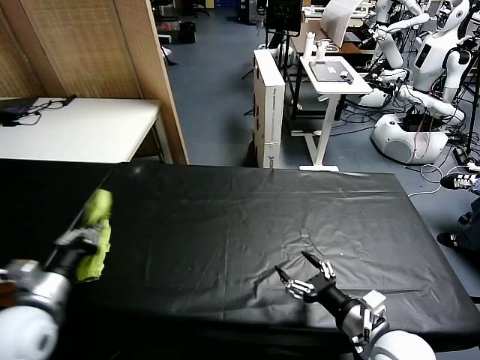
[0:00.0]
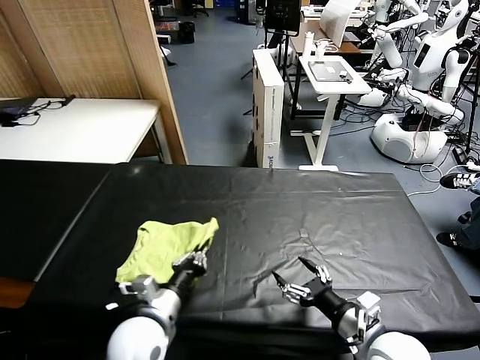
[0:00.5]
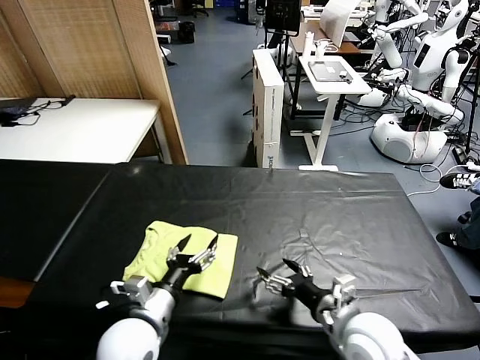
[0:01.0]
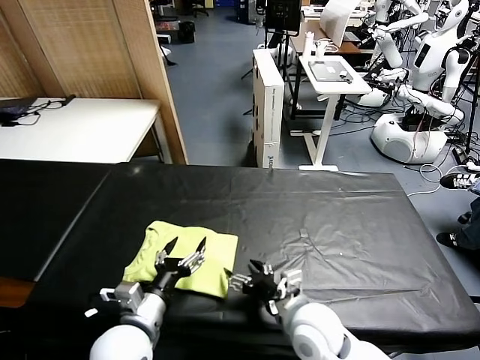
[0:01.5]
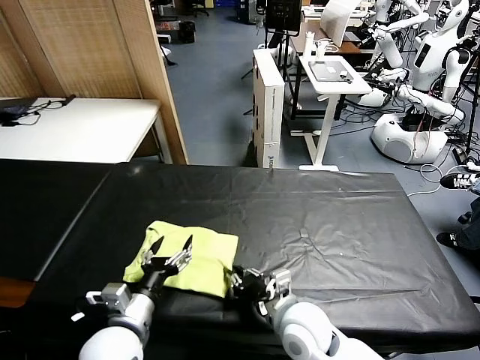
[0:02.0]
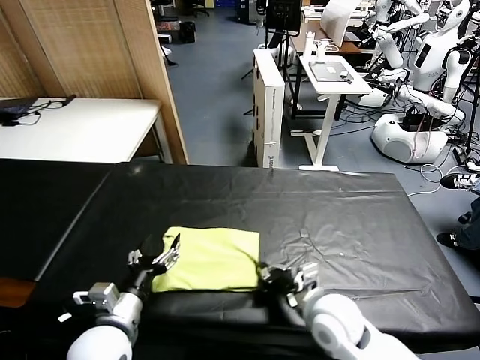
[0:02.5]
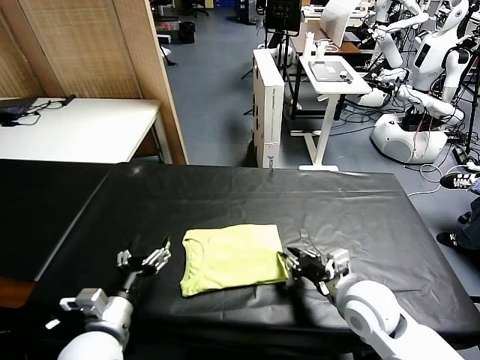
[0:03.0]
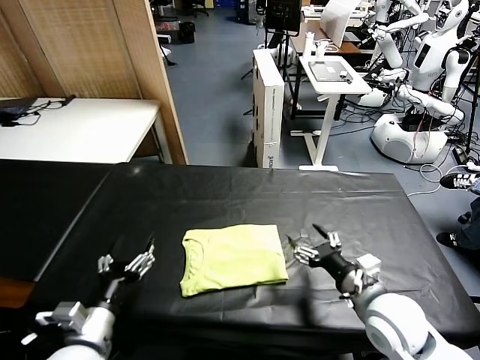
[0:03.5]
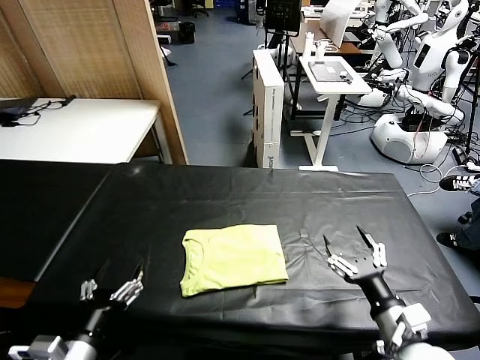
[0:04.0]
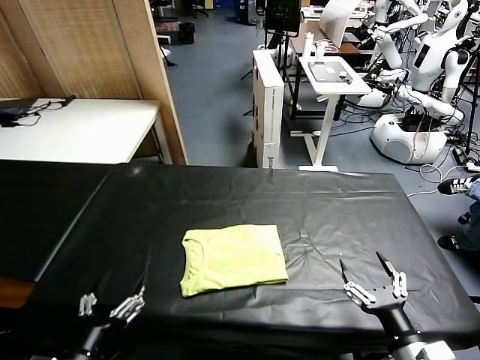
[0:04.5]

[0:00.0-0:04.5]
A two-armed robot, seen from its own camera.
Task of the whole recording: fold and organize the clothes.
Step, 0:01.0 to 0:03.0: Drag the clothes to the center of the table.
0:00.0 to 0:02.0: The right gripper is displaced to the left and forward by approximately 15 cm, and closes up. Meanwhile the left gripper goes approximately 15 cm to the right and downward, and opens up.
0:02.0 to 0:04.5: The right gripper travels to the right and backward by approximately 25 cm, and opens up, while the left gripper moves backward and to the left, roughly 15 cm.
